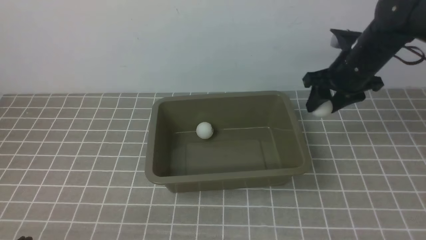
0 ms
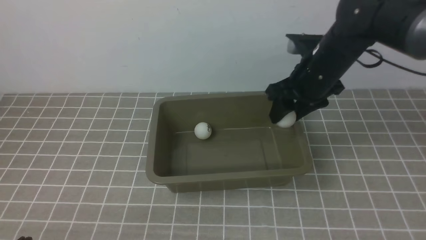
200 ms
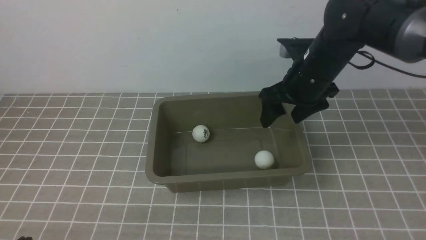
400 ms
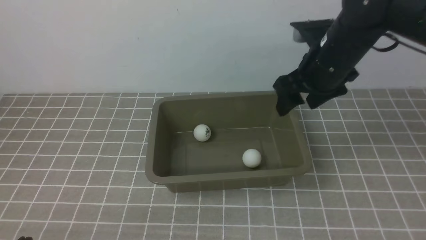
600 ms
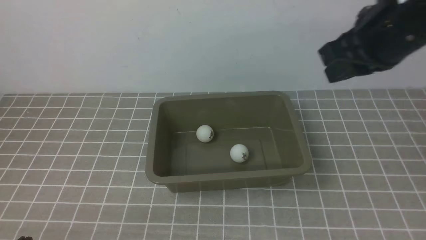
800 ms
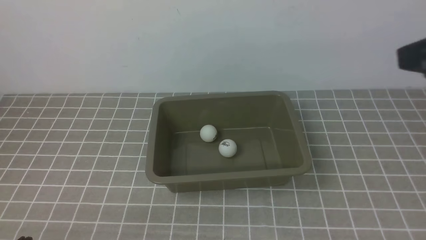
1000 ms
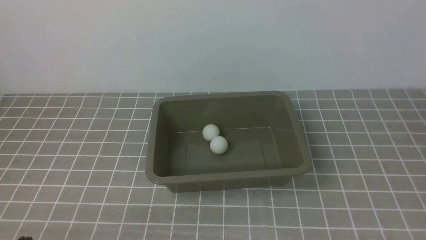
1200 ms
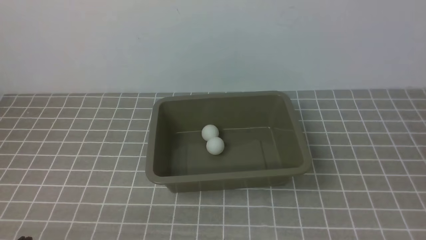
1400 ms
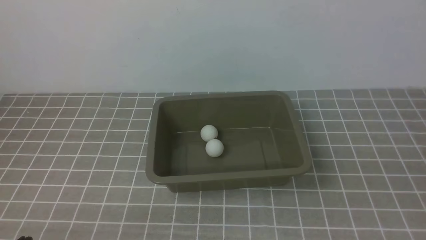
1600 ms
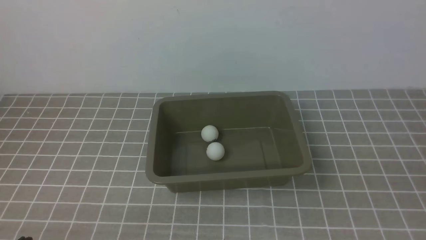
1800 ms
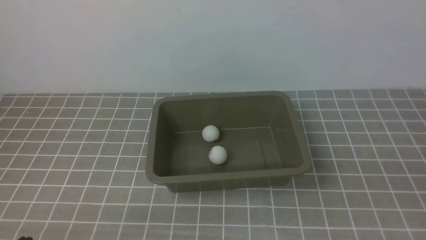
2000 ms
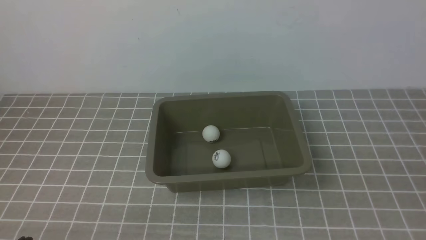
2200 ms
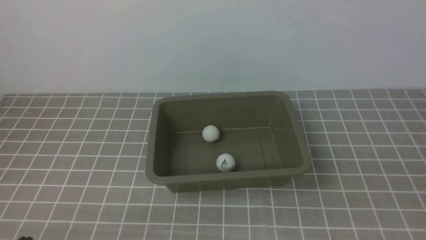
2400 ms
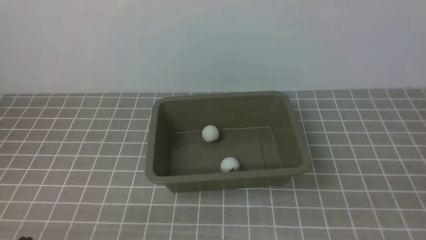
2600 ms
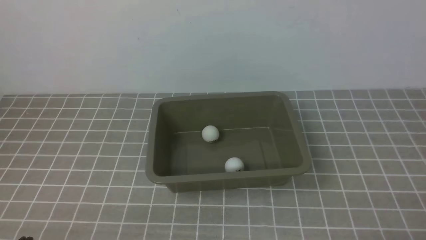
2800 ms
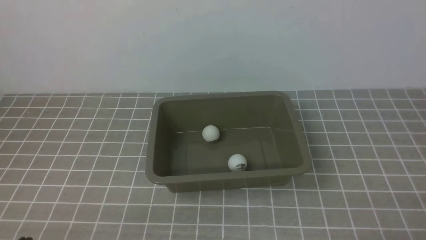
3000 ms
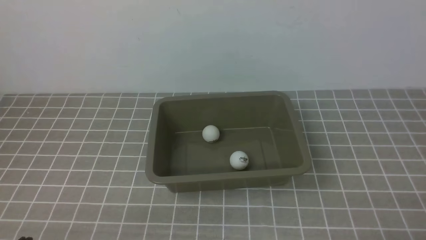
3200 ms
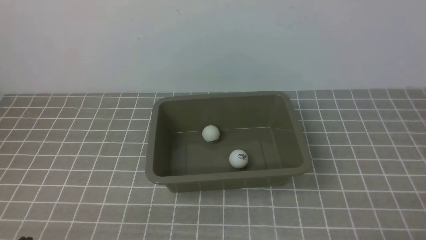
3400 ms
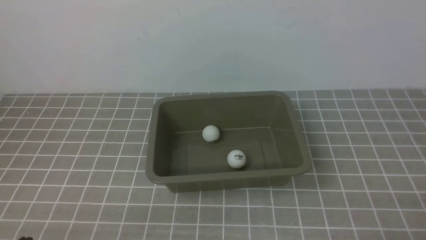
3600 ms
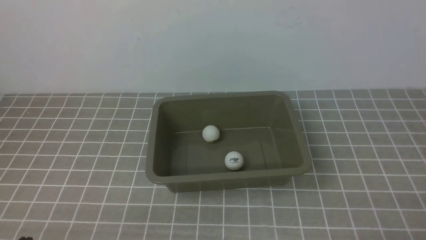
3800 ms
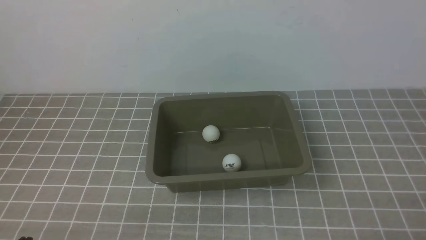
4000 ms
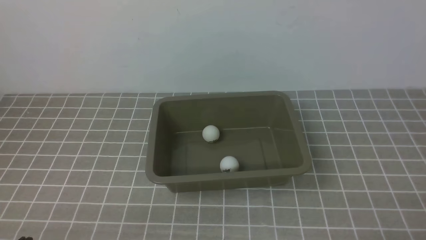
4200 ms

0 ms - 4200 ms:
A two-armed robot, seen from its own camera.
Step, 0 ms - 400 ms: use the right arm to put the table tennis ball into the box.
0 ms - 1400 ms: The right gripper shifts some 35 cm backward, and closes.
